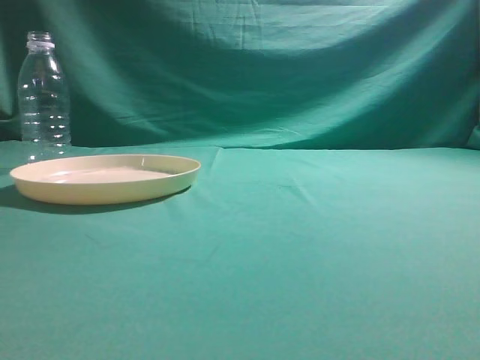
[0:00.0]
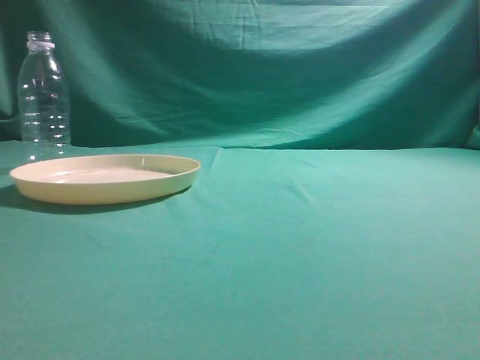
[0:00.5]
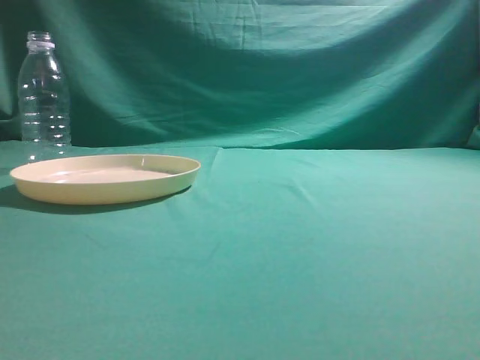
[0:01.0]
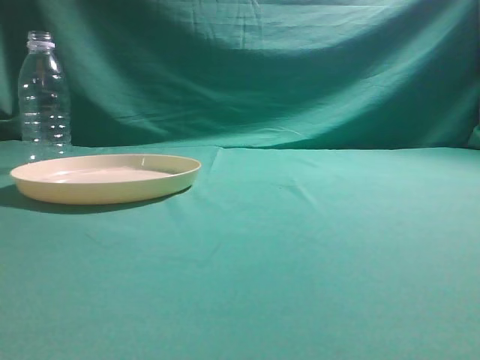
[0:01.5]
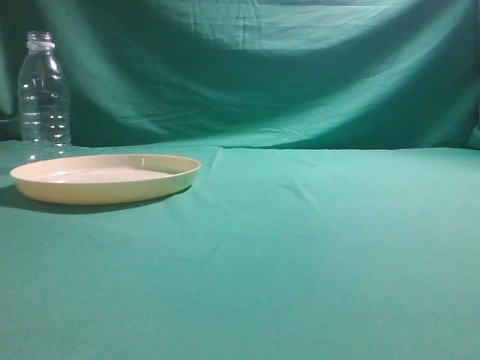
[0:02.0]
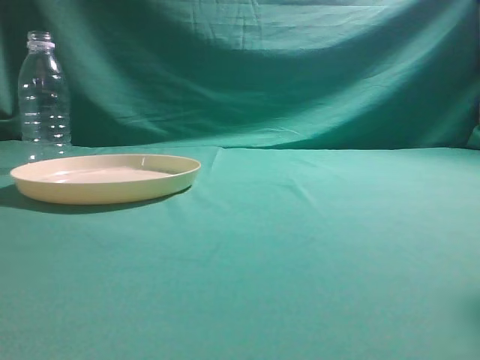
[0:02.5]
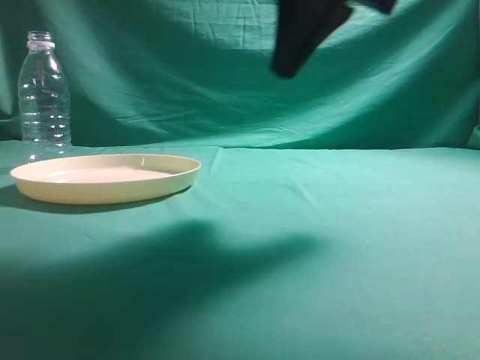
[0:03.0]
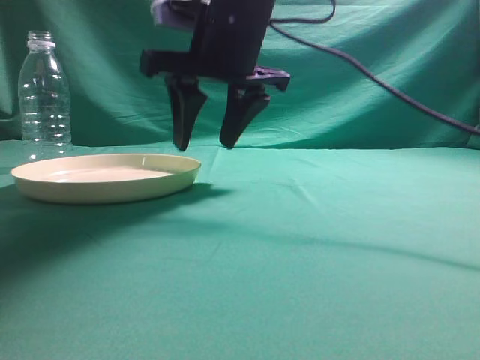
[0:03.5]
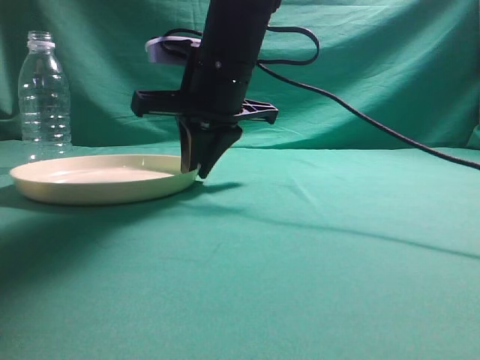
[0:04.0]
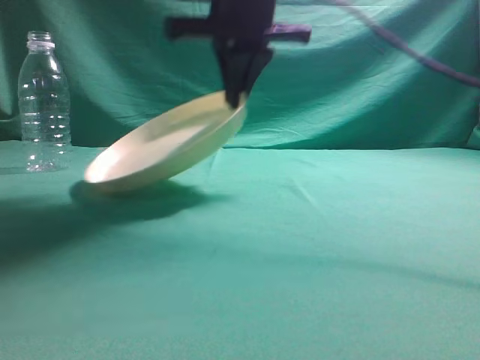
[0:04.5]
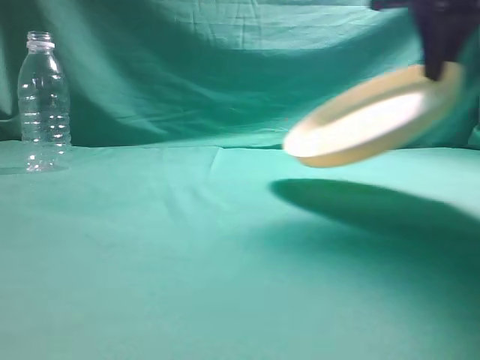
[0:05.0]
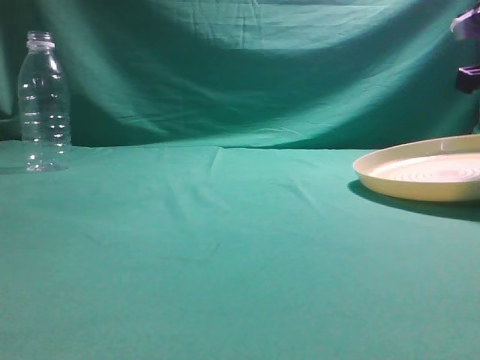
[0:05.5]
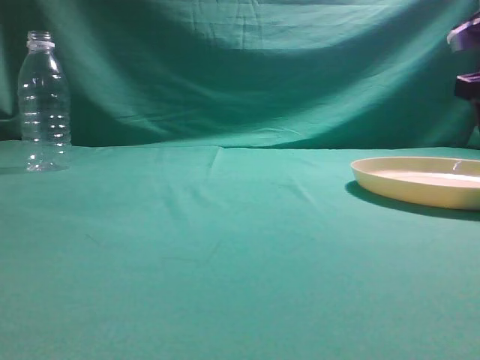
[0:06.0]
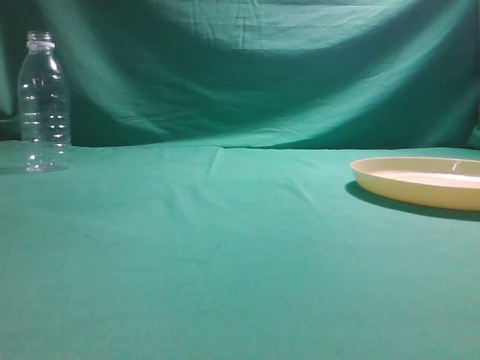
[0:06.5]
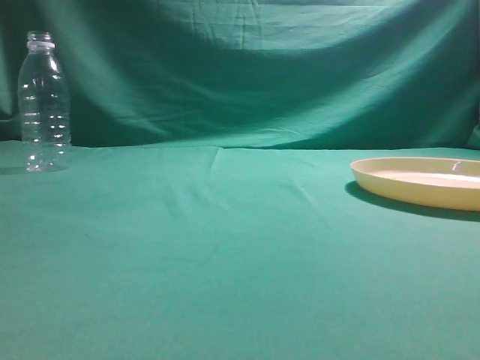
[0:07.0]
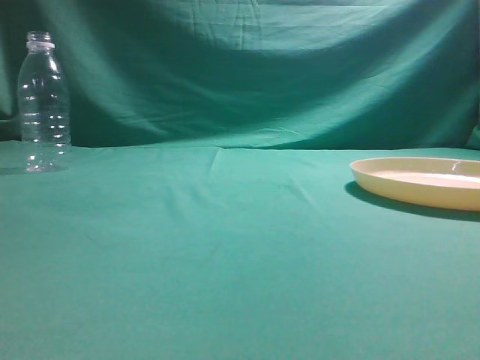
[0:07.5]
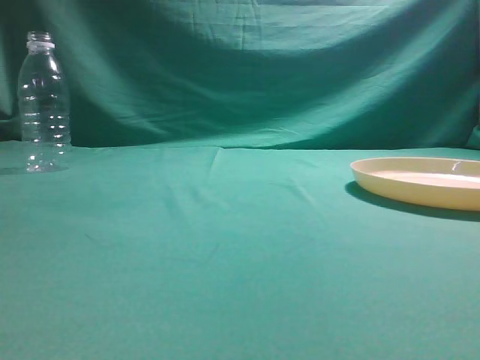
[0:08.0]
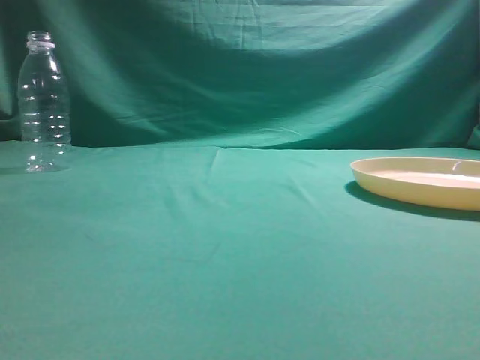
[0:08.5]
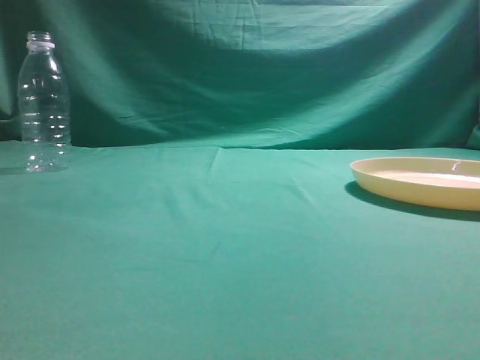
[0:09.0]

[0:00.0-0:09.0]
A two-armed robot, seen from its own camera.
Step, 0:00.0 to 0:04.5: Pick the container that can hold fruits.
Step, 0:05.0 to 0:06.0: Move the picked object to the right side of the table.
0:02.0 to 0:04.5: The right gripper moves forward and to the left, about 40 cm, and opens and closes again.
0:04.5 to 0:07.0: The right gripper heads to the right, backward and upward, covering some 35 cm, and opens and closes again.

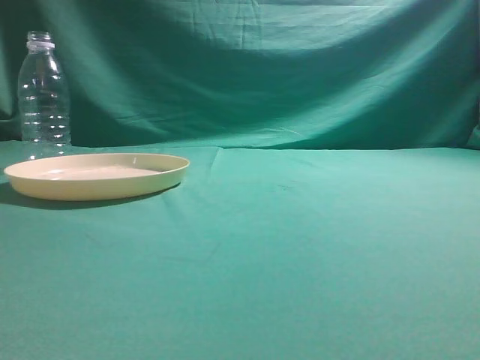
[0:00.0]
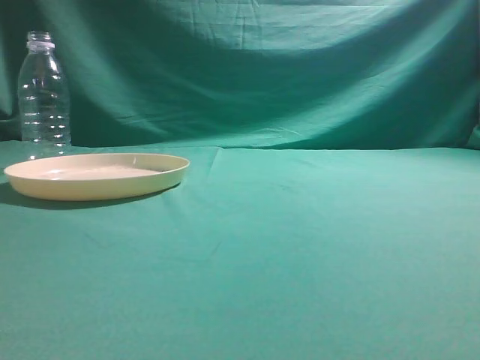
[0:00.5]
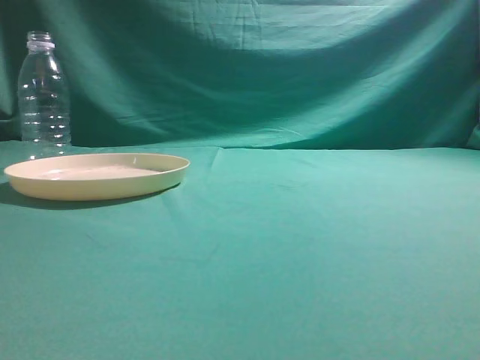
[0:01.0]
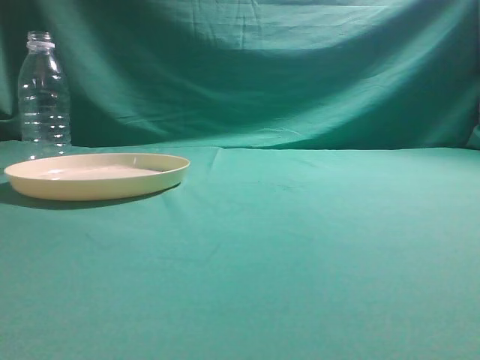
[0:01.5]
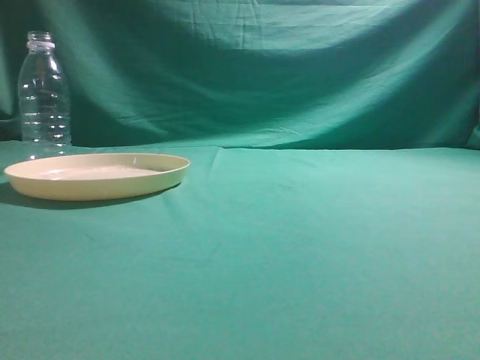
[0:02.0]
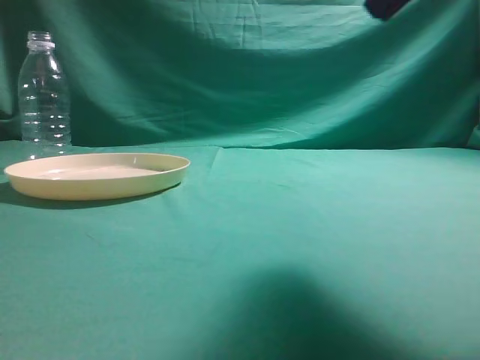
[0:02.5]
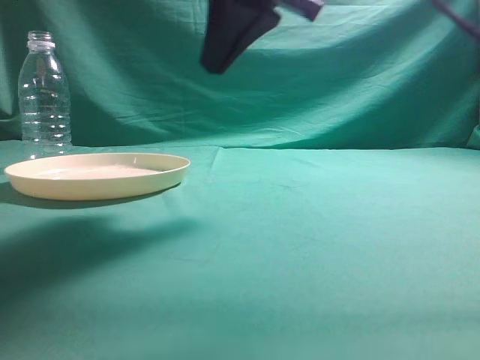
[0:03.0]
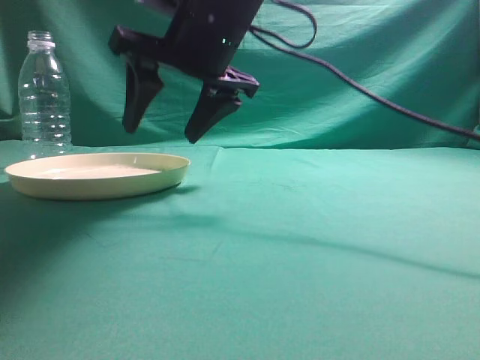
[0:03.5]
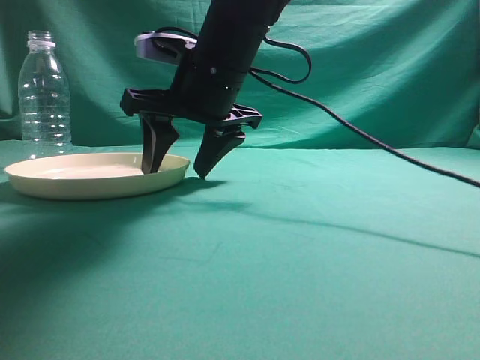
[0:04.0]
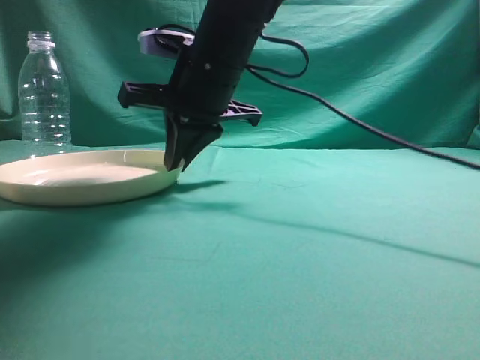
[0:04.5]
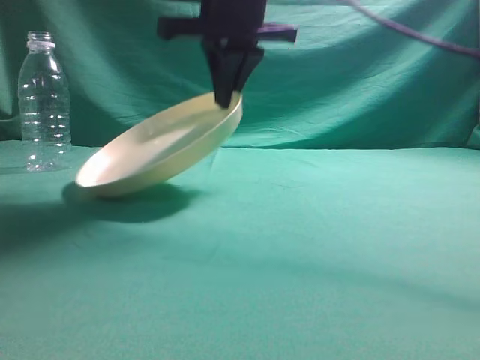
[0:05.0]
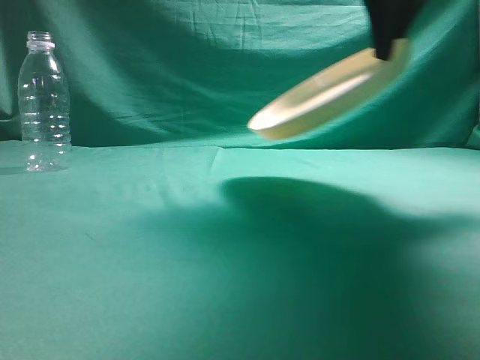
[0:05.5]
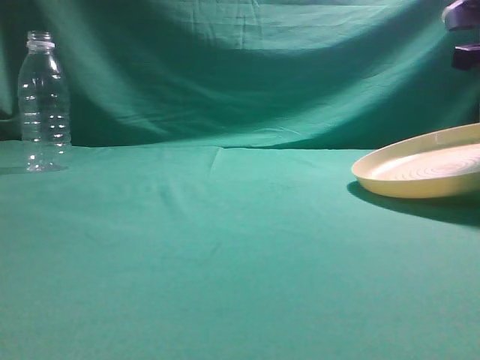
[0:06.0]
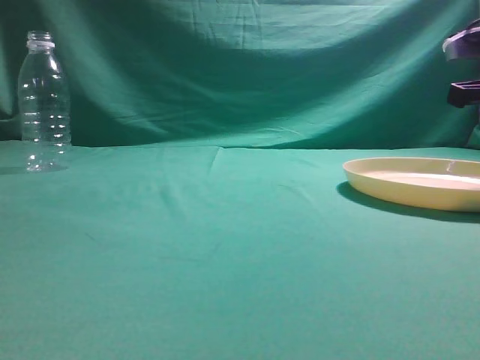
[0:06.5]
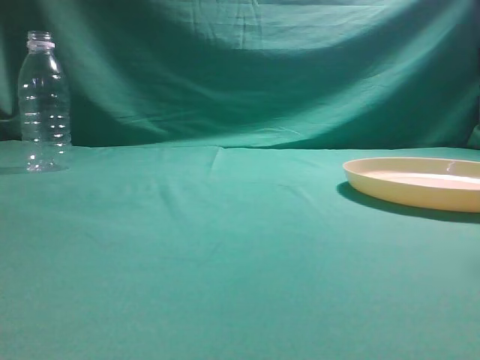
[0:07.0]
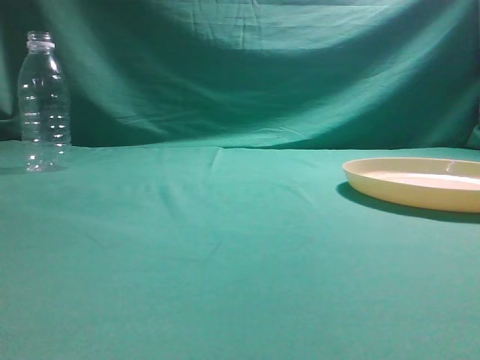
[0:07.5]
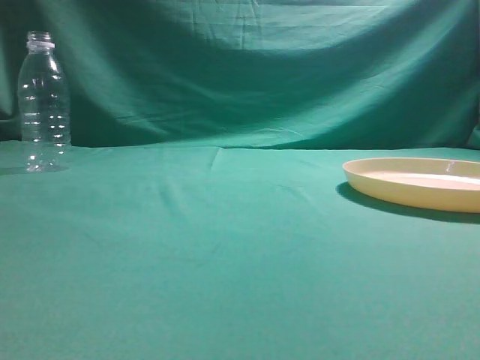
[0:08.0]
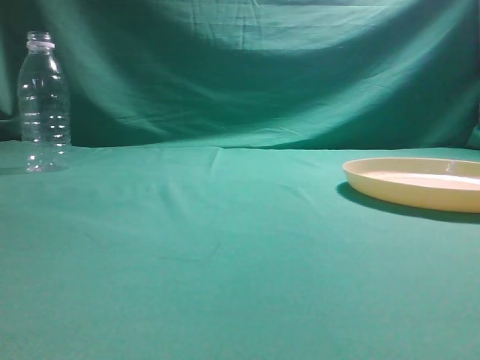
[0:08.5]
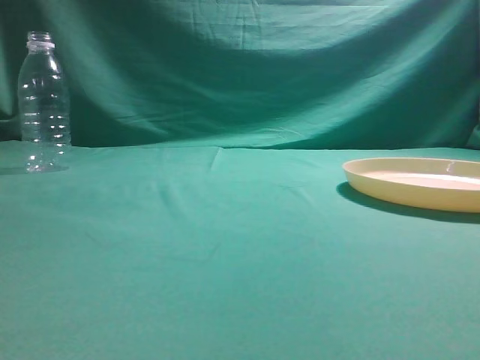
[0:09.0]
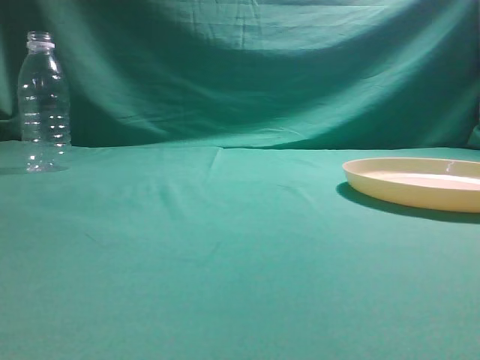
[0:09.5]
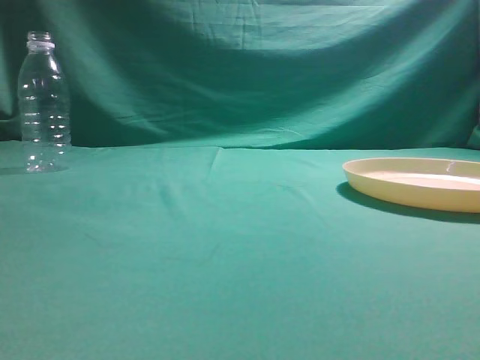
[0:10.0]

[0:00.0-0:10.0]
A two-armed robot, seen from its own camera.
Step, 0:00.0 to 0:05.0: Pick the container that can hold fruits.
Step, 0:05.5 to 0:07.0: Move the picked object to the right side of the table.
0:02.0 to 0:04.0: The right gripper heads to the left, forward and downward, covering approximately 40 cm, and opens.
0:04.0 to 0:06.0: The right gripper goes about 30 cm to the right, and closes up.
0:06.0 to 0:08.0: The right gripper goes roughly 30 cm backward and upward, and opens, then closes once more.
